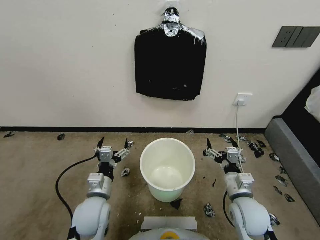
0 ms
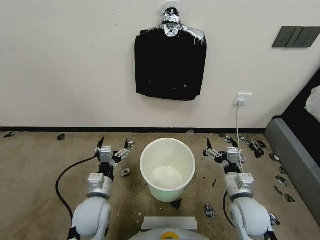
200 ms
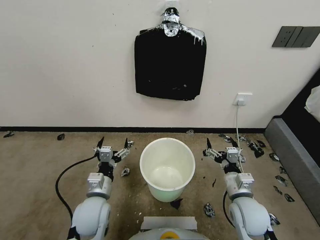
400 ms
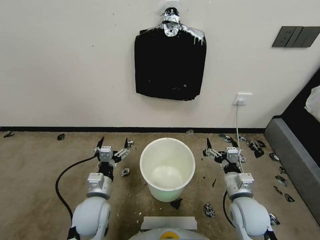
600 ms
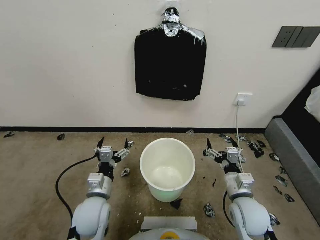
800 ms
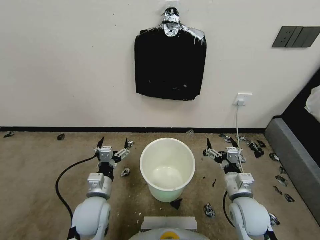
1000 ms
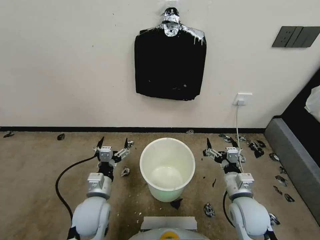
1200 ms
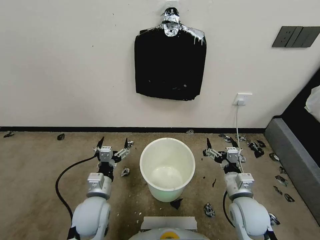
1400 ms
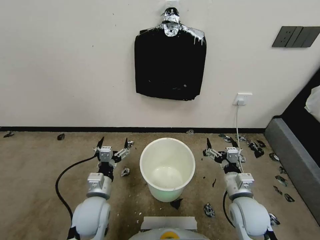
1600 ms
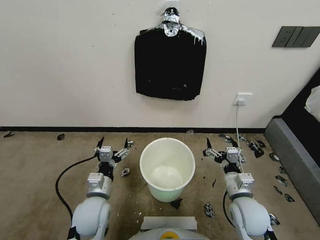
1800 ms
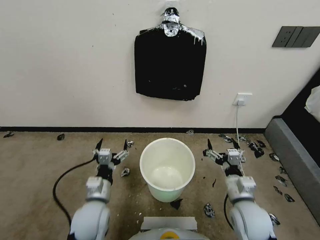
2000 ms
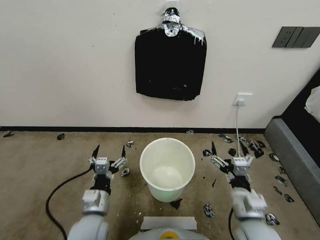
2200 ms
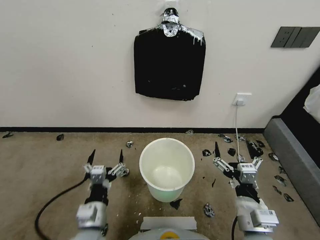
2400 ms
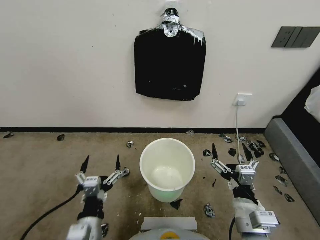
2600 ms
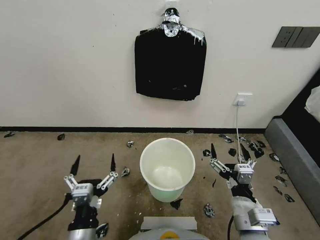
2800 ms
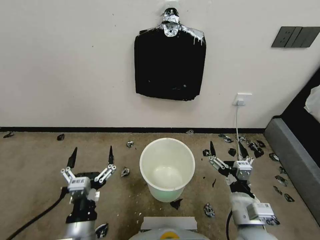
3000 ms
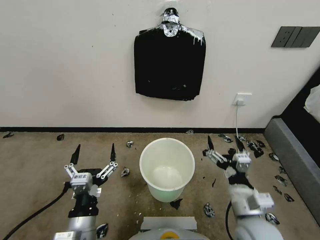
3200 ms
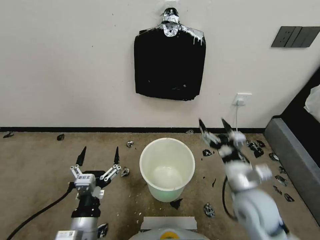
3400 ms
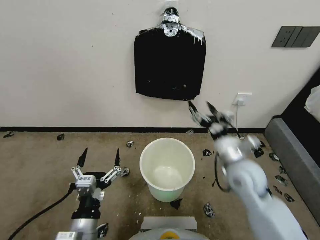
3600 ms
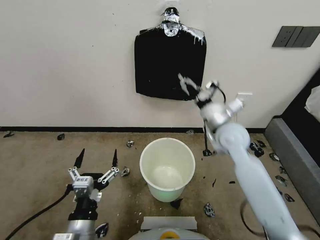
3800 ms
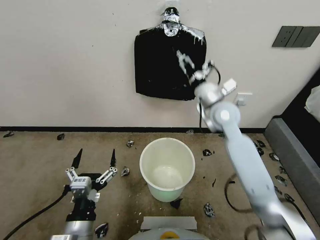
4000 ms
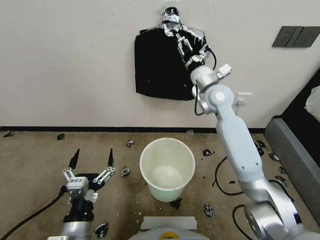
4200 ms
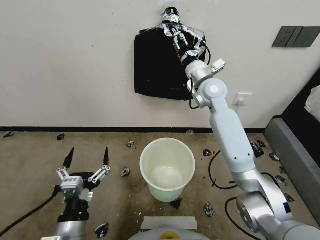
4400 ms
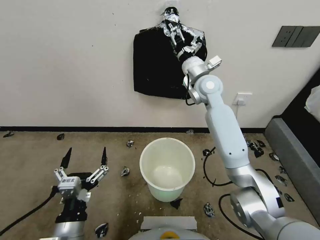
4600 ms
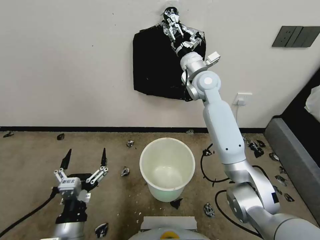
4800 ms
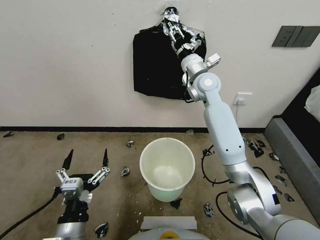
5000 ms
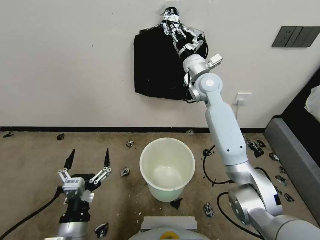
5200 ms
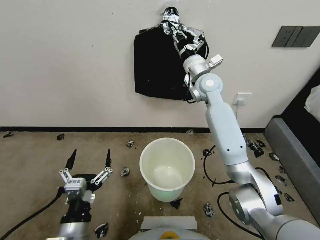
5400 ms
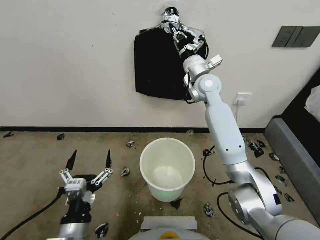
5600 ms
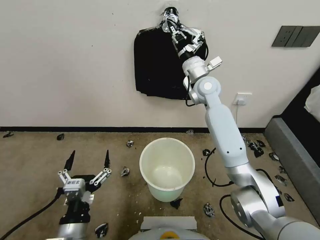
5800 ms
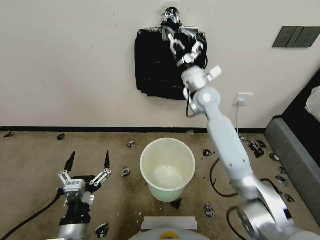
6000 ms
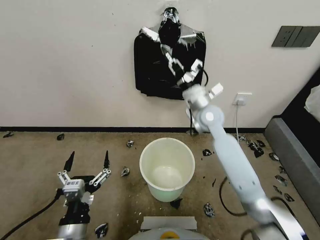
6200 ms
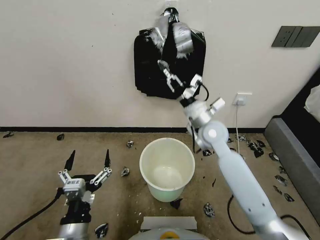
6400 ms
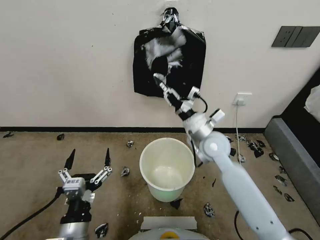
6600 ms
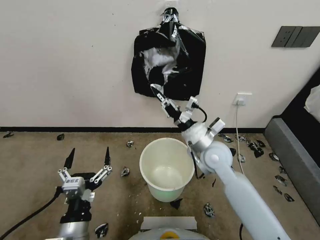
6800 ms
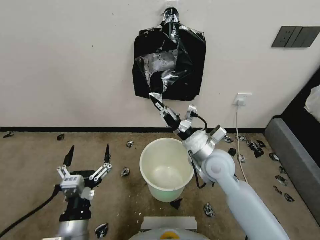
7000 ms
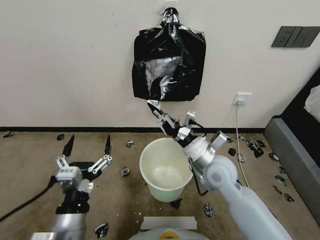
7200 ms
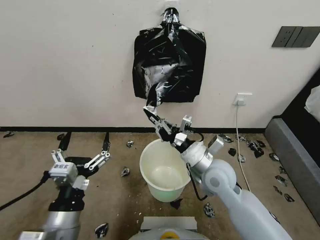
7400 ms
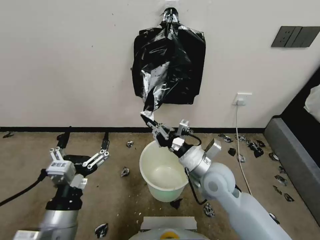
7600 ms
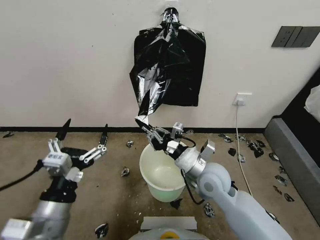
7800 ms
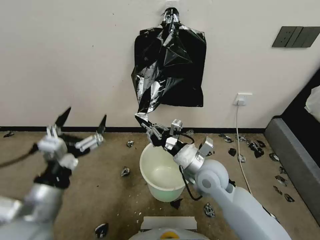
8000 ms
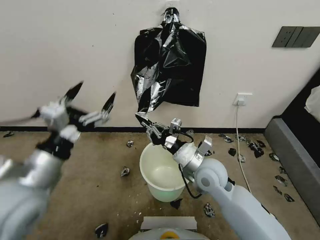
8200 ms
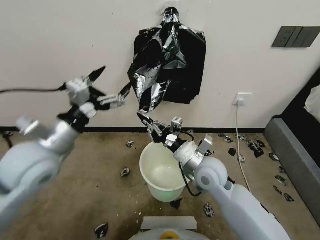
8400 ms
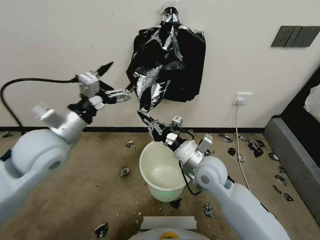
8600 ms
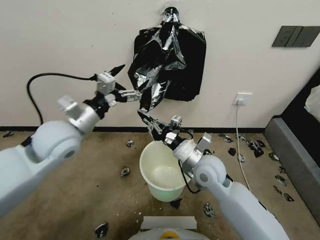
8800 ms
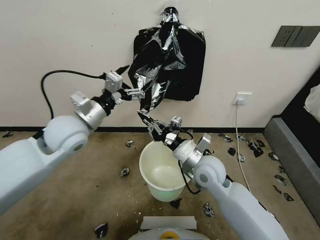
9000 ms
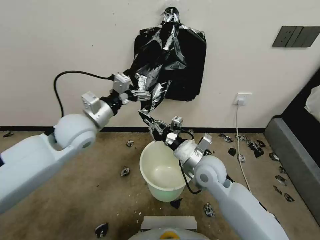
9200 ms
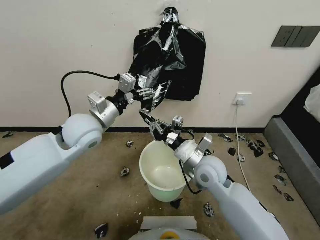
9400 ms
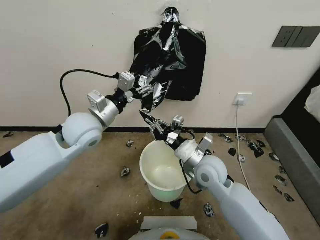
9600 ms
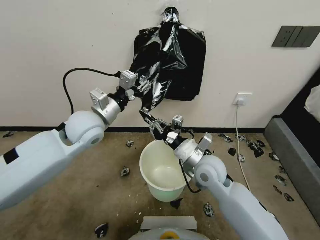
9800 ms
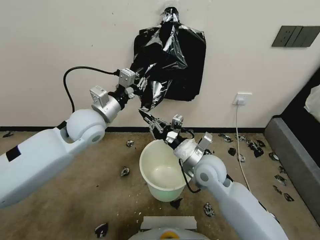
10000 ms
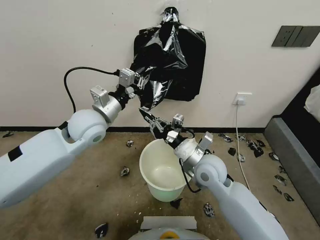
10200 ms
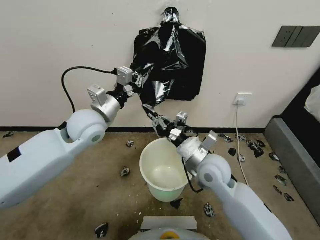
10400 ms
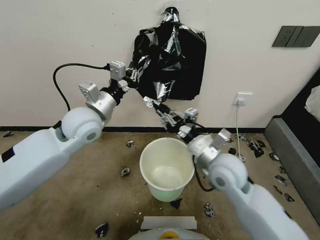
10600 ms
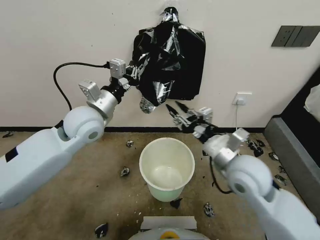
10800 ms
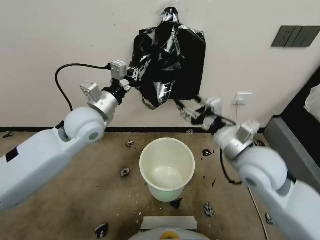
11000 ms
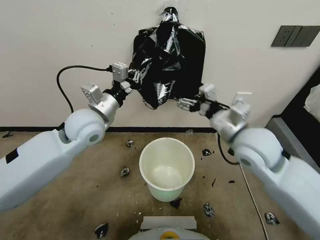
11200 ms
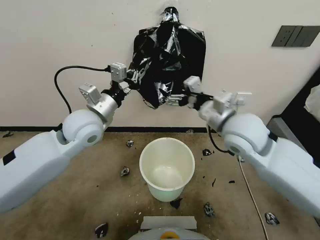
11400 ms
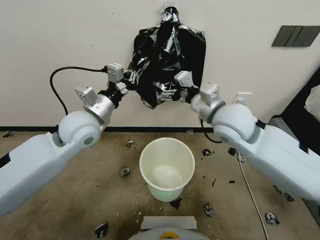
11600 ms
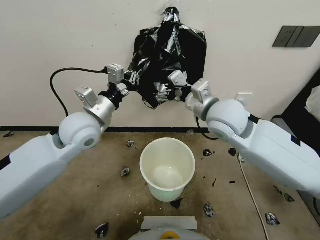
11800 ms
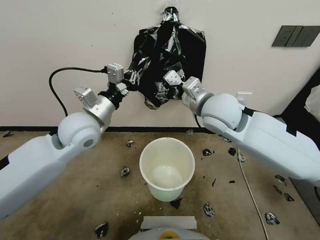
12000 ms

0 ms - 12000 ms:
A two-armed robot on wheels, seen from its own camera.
Task of the whole recording: Place a trash bag onto the trash bin.
1600 ms - 3000 ms: Both grippers travel together backward and upward, approximately 10 cm.
3000 ms - 4400 ms: The right gripper moves forward and upward, some 40 cm.
4400 ms - 6000 ms: The right gripper closes up.
6000 ms - 7600 ms: The left gripper travels upward by some 5 cm. Meanwhile the right gripper moves backward and downward, approximately 25 cm.
7600 ms - 9000 ms: The left gripper shifts some 25 cm forward.
9000 ms - 10400 ms: The left gripper closes up.
10400 ms - 12000 ms: The right gripper moves upward and forward, some 20 cm, and opens up.

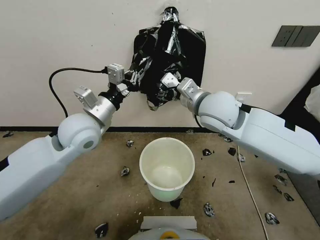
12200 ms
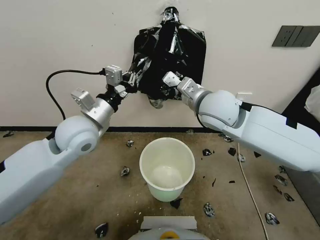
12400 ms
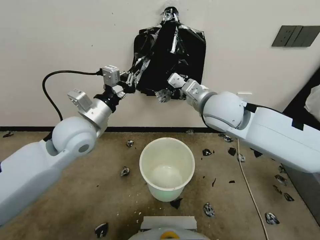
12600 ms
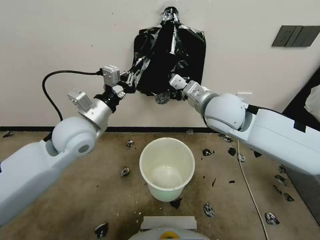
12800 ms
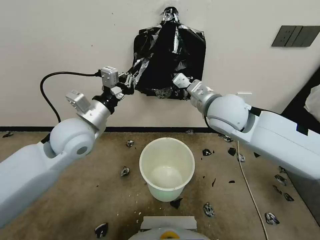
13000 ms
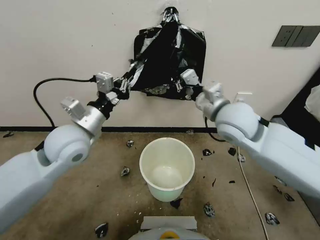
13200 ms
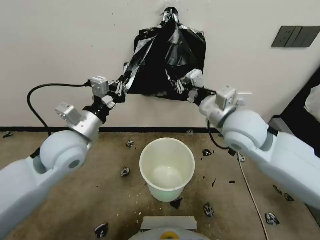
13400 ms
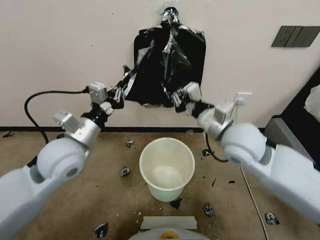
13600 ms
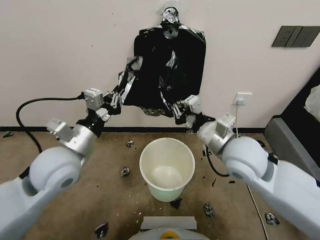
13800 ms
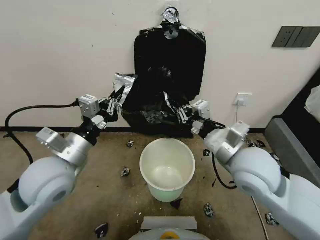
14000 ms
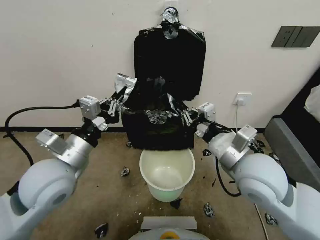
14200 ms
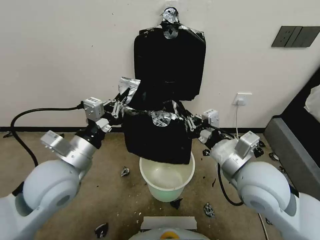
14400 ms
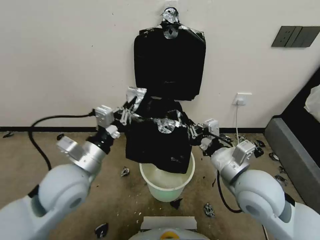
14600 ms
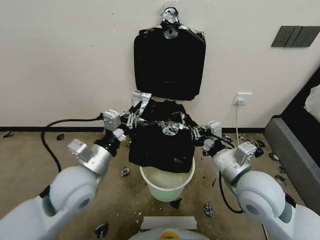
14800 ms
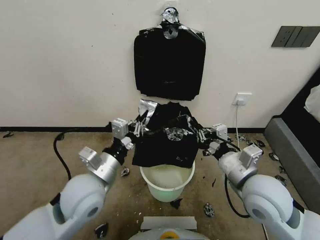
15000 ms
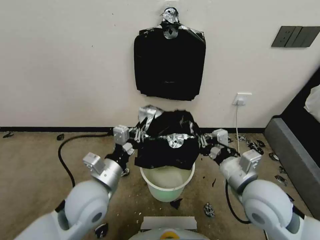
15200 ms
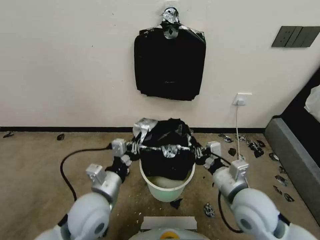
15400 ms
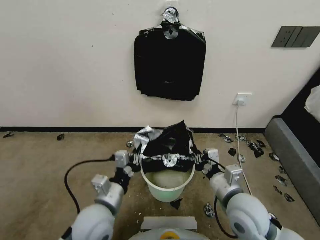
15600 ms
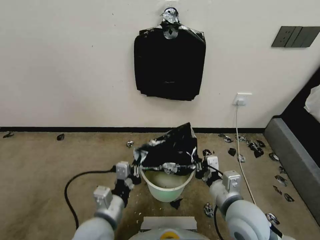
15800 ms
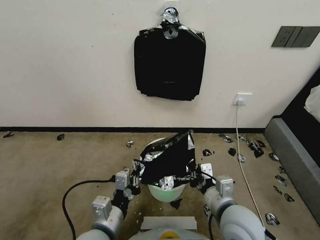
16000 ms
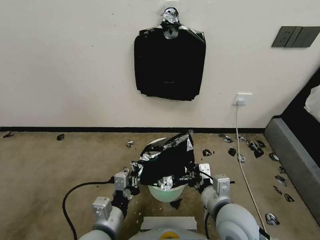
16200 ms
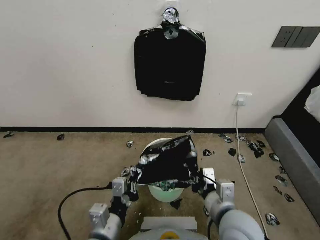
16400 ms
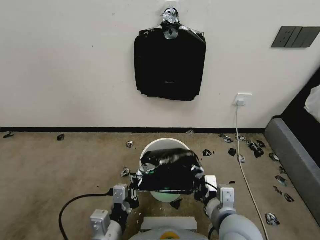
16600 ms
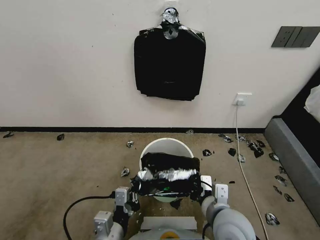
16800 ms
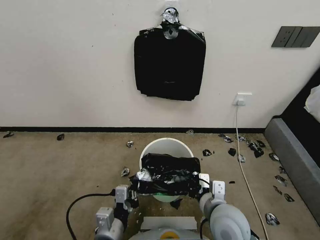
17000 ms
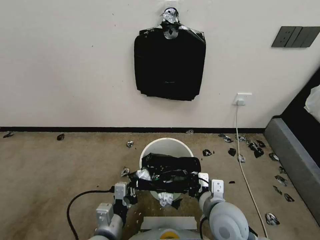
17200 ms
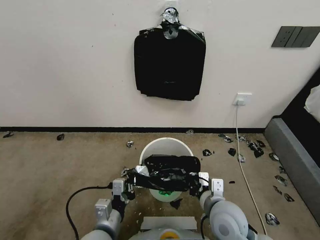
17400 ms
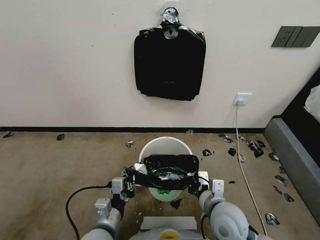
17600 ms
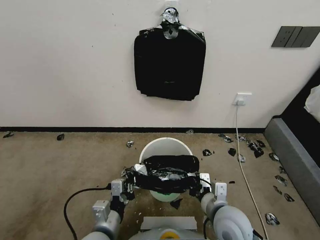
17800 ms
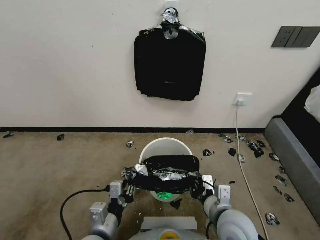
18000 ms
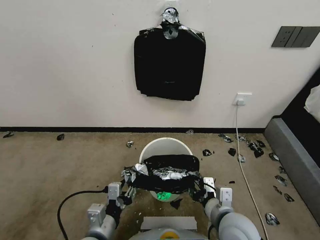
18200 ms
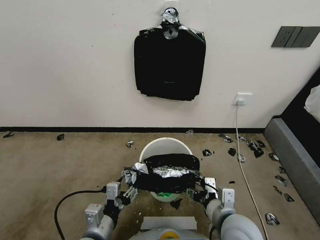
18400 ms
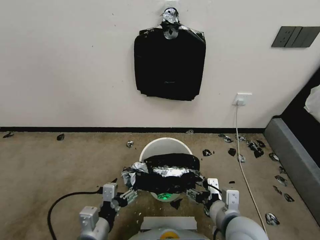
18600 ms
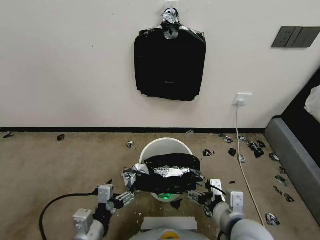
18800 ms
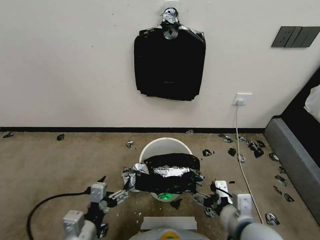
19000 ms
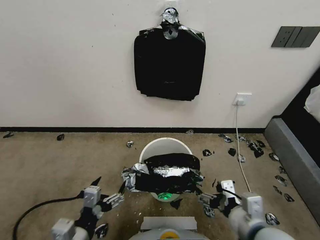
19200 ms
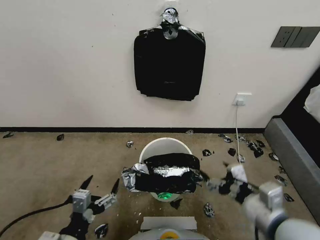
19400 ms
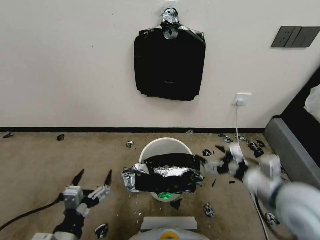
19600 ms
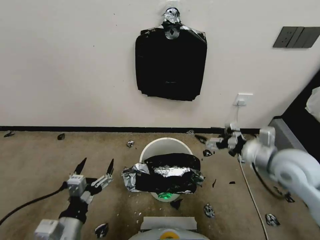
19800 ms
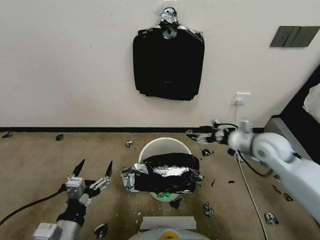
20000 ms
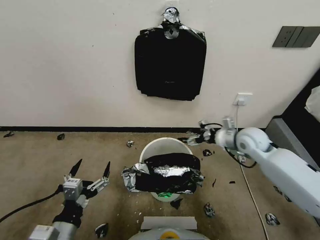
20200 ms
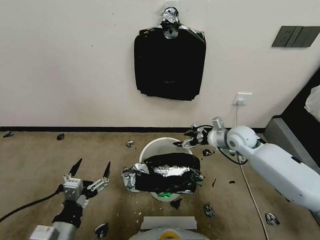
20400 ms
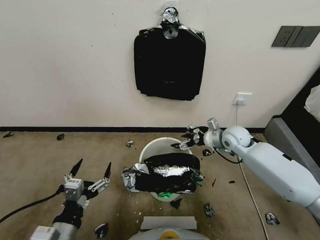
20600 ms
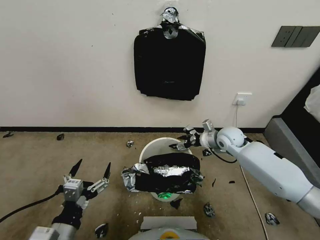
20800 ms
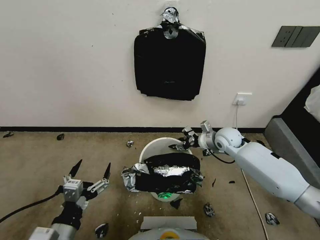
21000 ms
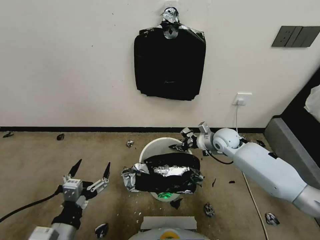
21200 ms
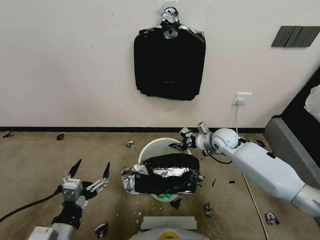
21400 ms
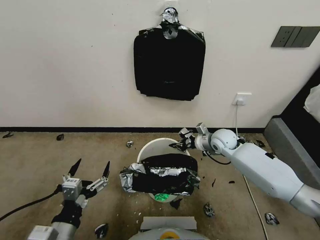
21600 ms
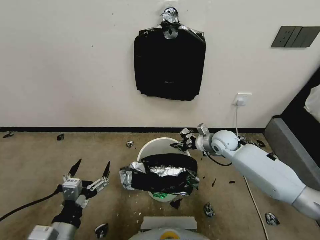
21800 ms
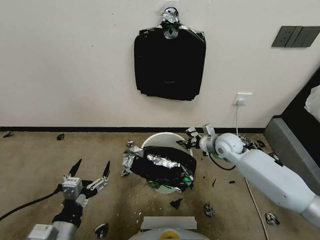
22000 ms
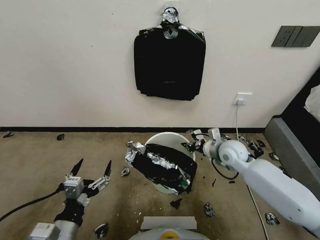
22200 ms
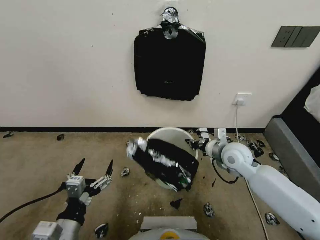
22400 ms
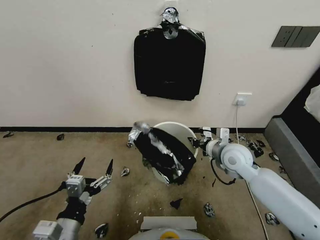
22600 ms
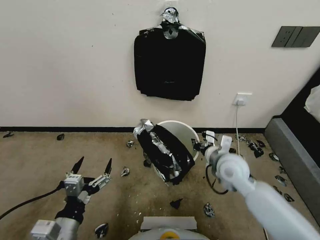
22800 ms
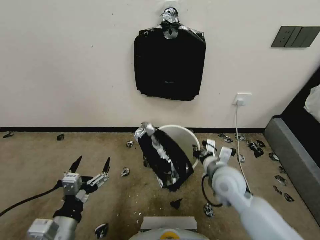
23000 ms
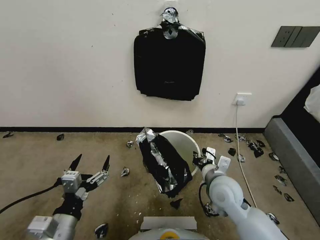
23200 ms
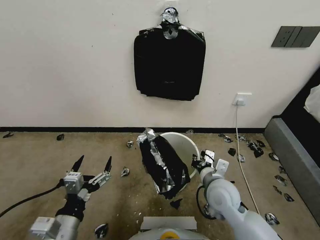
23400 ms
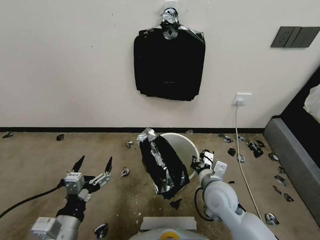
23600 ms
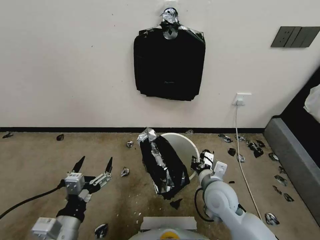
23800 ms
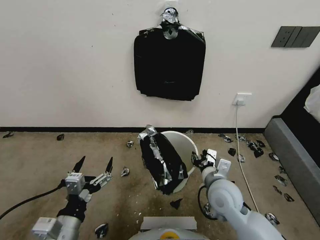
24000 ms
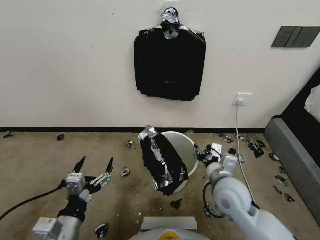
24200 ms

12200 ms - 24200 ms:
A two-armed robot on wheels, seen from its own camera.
Task of the whole recording: Place a trash bag onto the trash bin.
12200 ms - 13800 ms: The left gripper moves backward, some 10 cm; the right gripper shifts about 15 cm backward, downward and to the right, and closes up.
13800 ms - 15200 ms: The left gripper heads downward and to the right, covering roughly 10 cm, while the right gripper travels backward and downward by roughly 10 cm.
15200 ms - 16600 ms: The left gripper moves backward and downward, approximately 15 cm; the right gripper moves backward, to the left and downward, some 10 cm.
16600 ms - 18200 ms: The left gripper opens up; the right gripper opens.
18200 ms - 19800 ms: The right gripper goes about 25 cm to the right, upward and forward, and opens its fingers, while the left gripper goes roughly 5 cm to the left, and opens.
19800 ms - 21200 ms: The right gripper moves forward, downward and to the left, about 25 cm, and closes up.
21200 ms - 22600 ms: The right gripper is displaced backward by approximately 10 cm.
22600 ms - 24200 ms: The right gripper shifts about 10 cm backward, and opens up.
